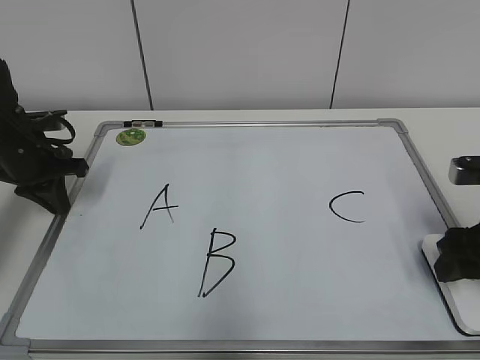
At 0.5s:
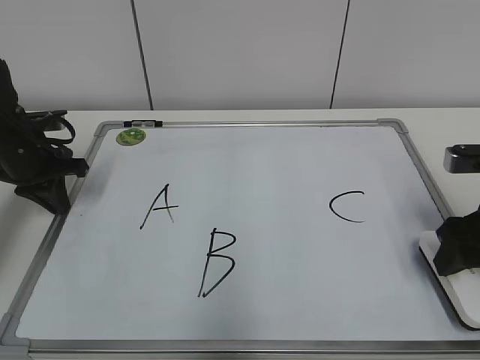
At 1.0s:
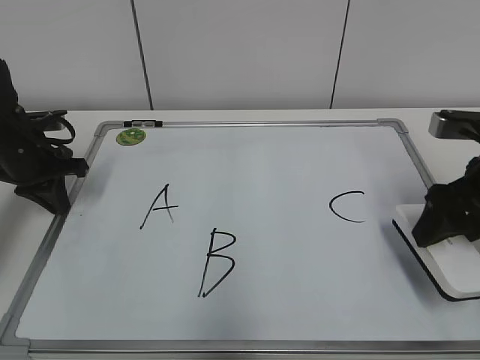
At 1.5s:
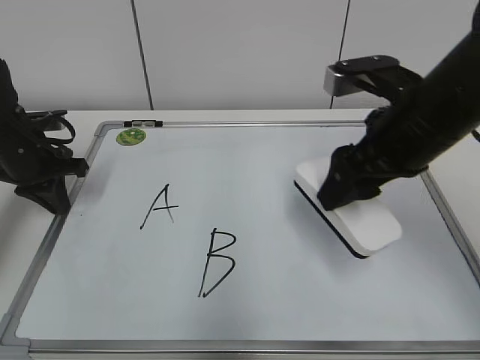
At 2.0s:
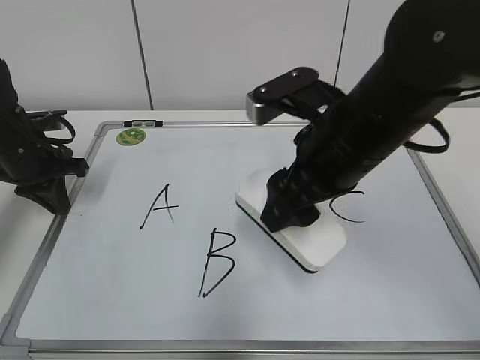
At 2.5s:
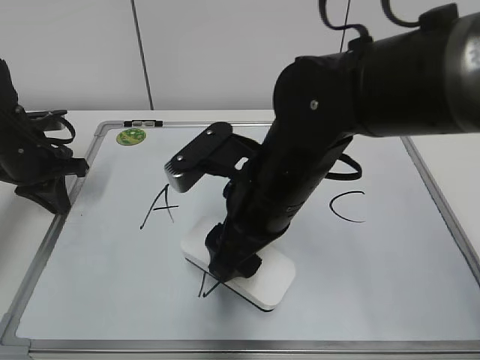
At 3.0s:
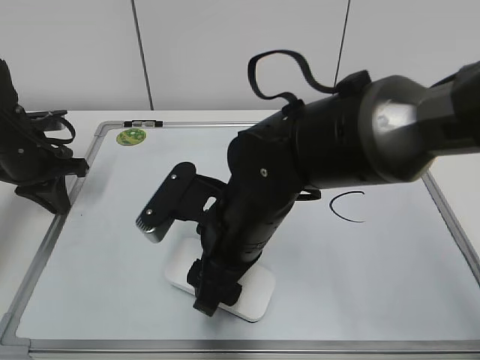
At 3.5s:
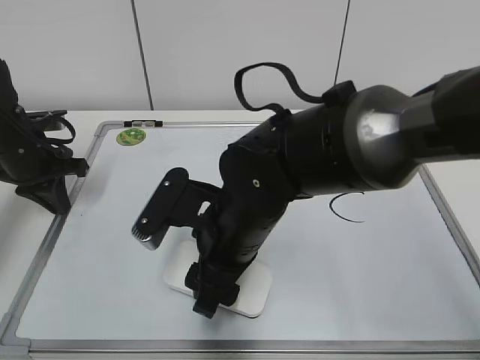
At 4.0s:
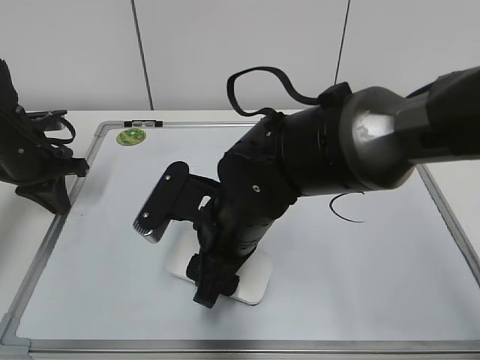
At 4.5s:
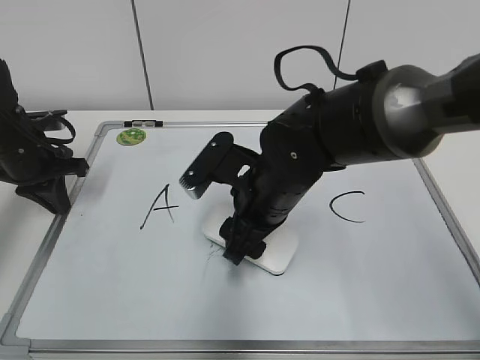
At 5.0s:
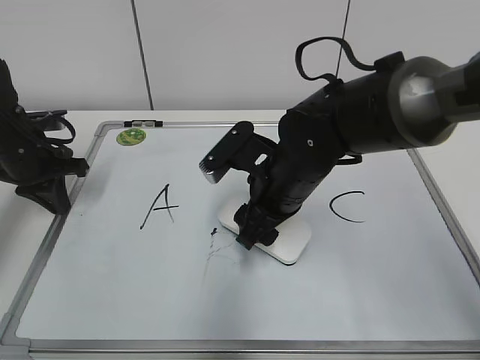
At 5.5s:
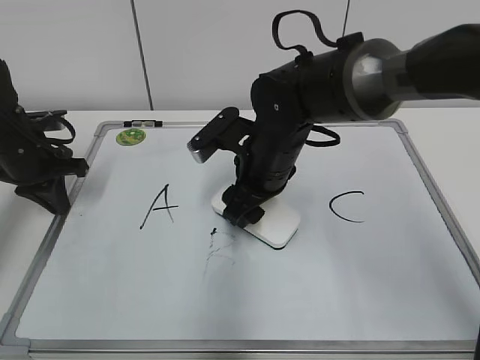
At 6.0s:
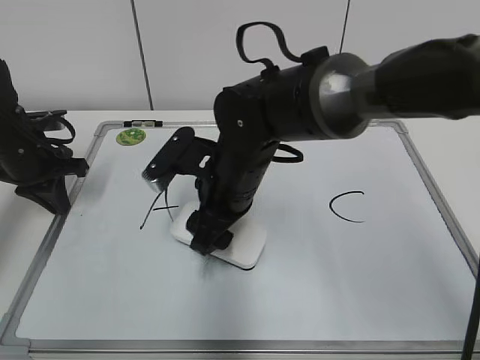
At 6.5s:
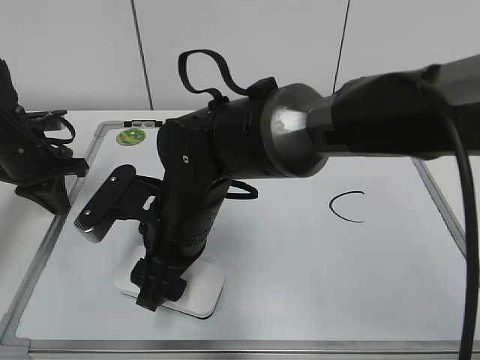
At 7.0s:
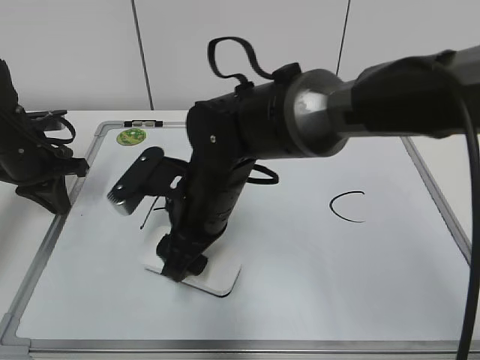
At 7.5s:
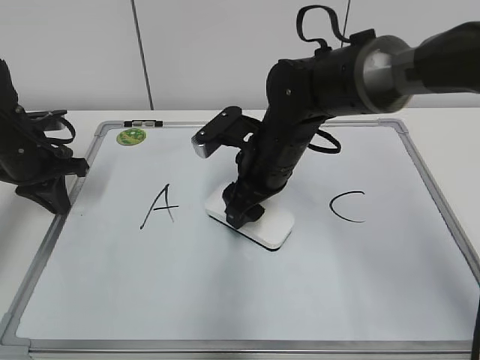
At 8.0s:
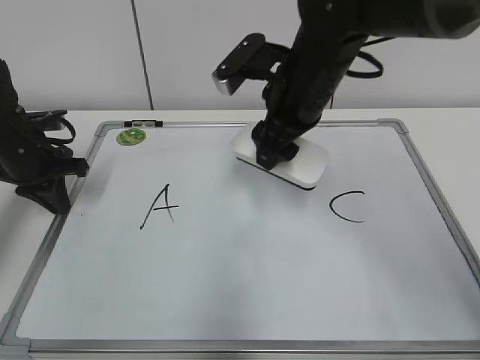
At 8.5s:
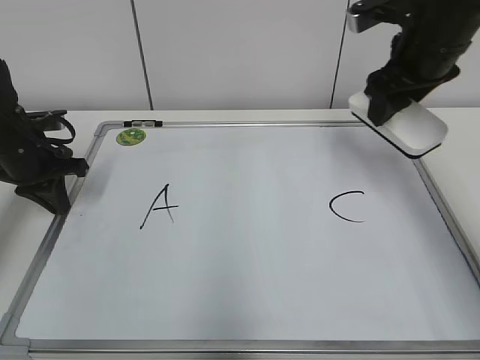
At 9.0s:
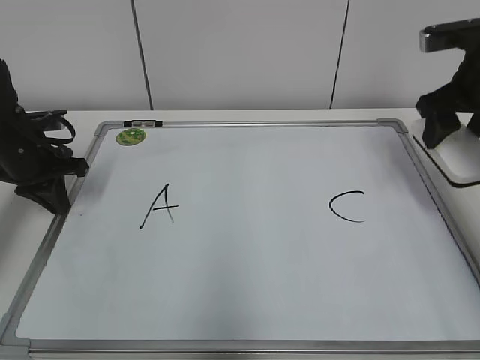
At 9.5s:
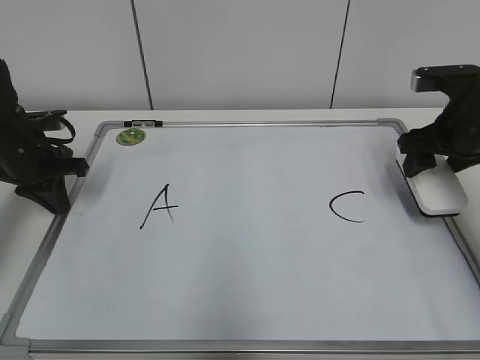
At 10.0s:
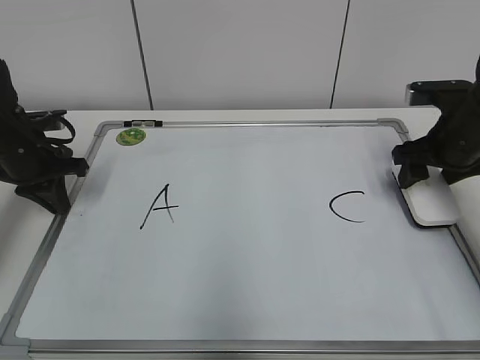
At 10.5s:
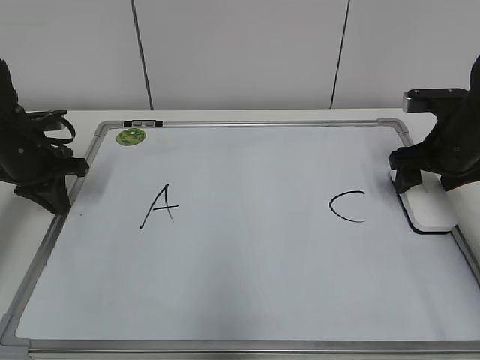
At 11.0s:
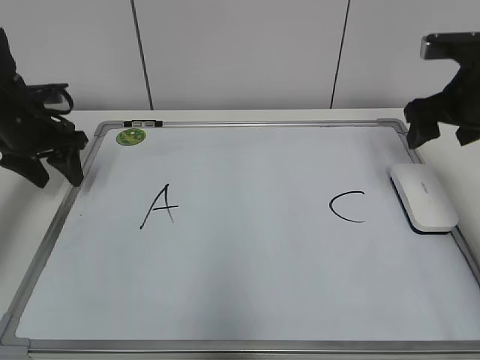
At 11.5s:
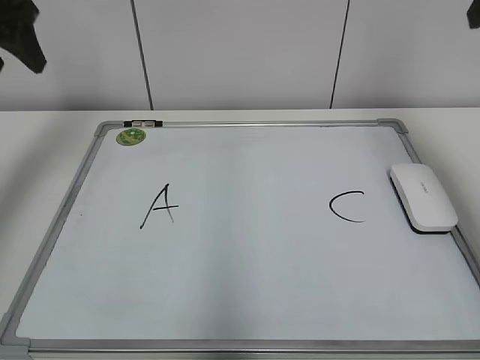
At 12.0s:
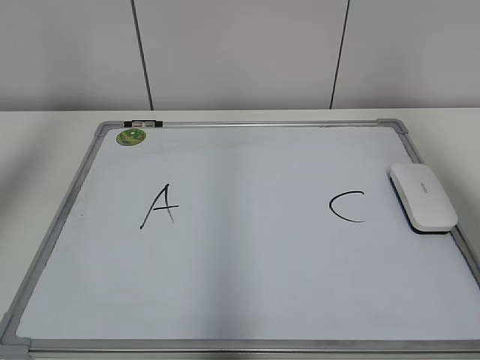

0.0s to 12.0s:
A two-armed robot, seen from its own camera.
Task of the whole recording: pick up the eraser on the blackboard and erase the letter "B".
Step, 0.5s to 7.0s: Erase the letter B with your right hand.
0.0s to 2.0s: The right gripper heads to the left and upward, covering approximately 20 cm.
2.0s to 4.0s: The right gripper moves to the left and downward, roughly 15 cm.
4.0s to 6.0s: The right gripper goes some 5 cm forward.
6.0s to 8.0s: The right gripper is displaced upward and to the right by about 10 cm.
8.0s to 10.0s: The right gripper shifts about 20 cm to the right.
10.0s to 12.0s: The left gripper goes roughly 30 cm upward, and opens up. Meanwhile the right gripper shifts some 30 cm upward and backward.

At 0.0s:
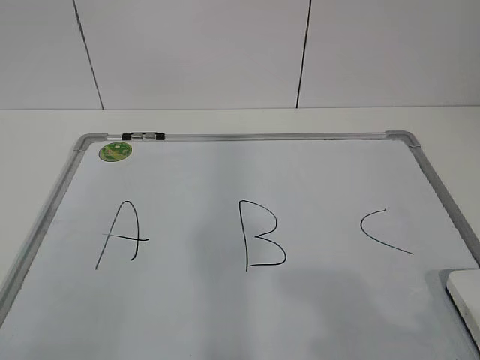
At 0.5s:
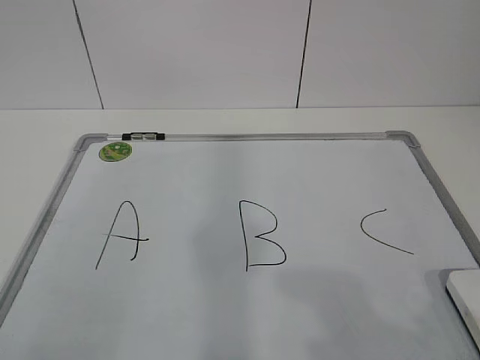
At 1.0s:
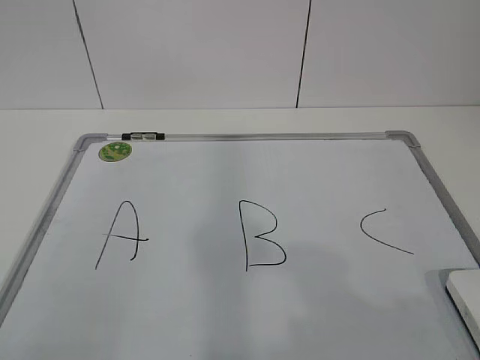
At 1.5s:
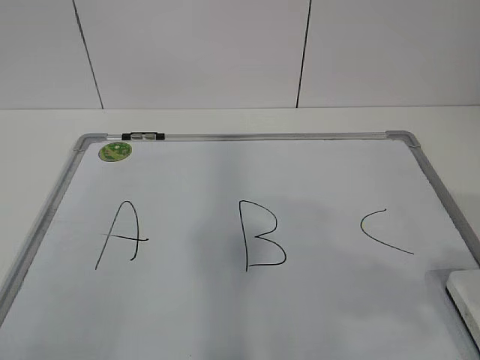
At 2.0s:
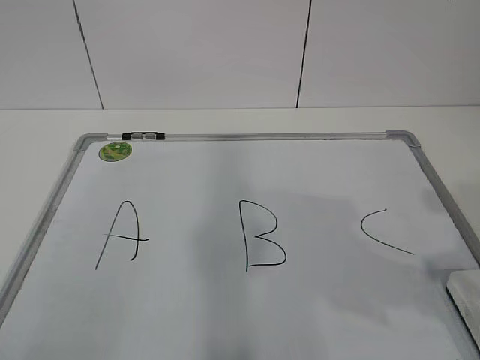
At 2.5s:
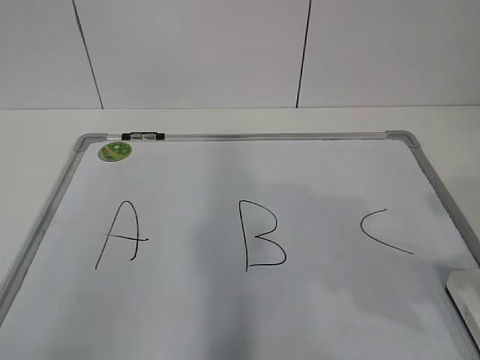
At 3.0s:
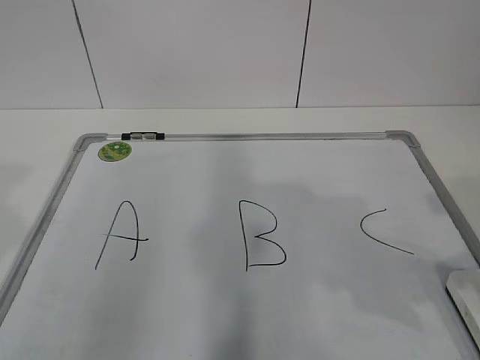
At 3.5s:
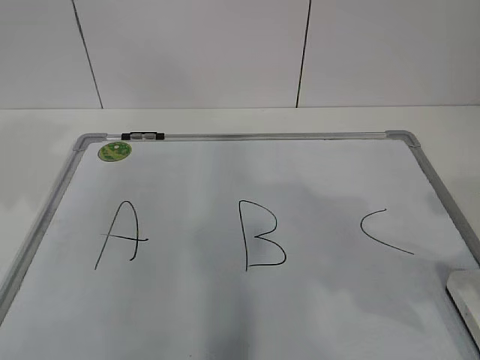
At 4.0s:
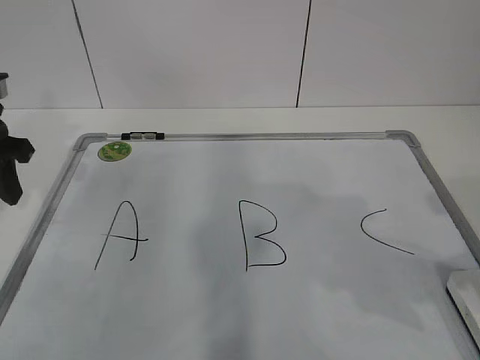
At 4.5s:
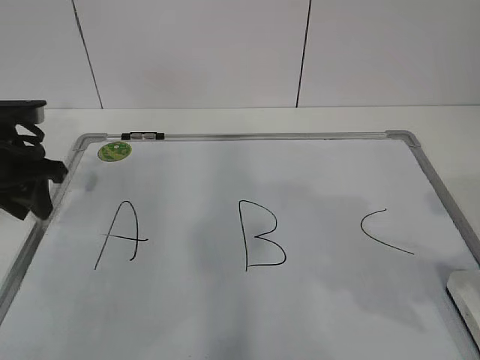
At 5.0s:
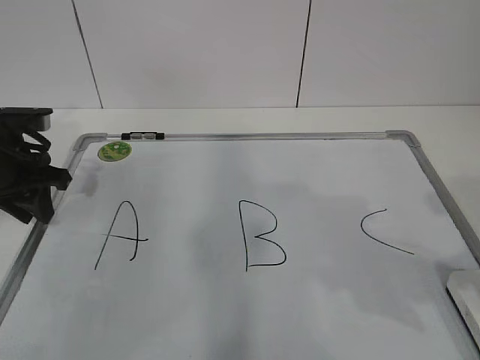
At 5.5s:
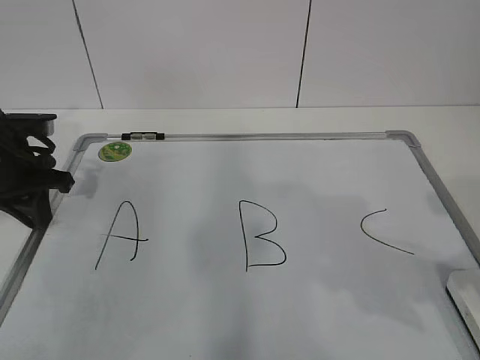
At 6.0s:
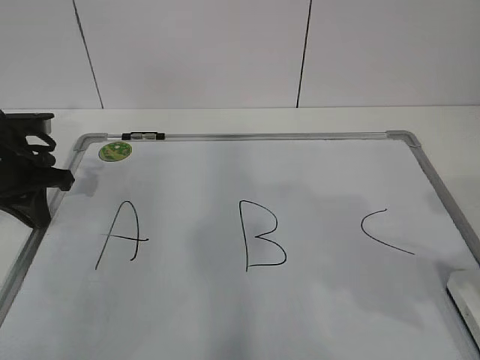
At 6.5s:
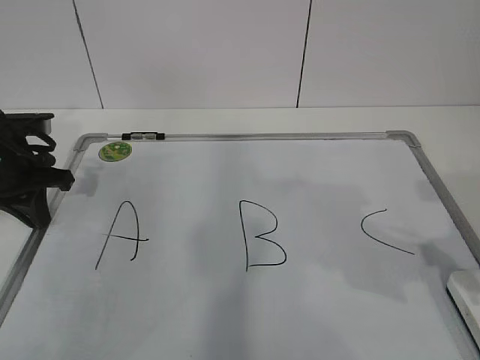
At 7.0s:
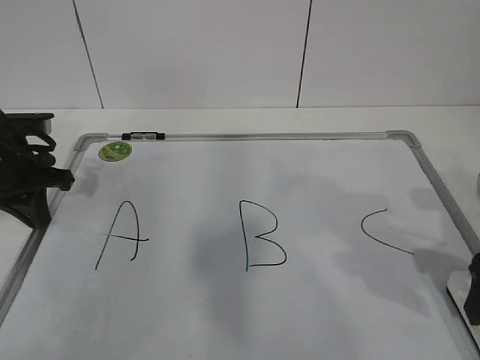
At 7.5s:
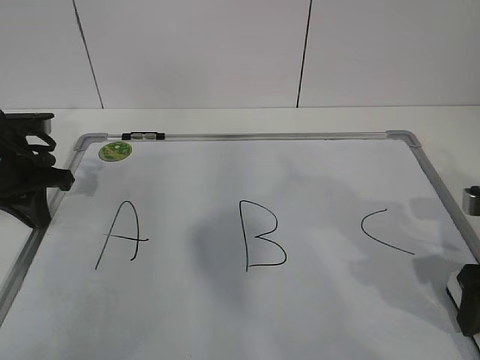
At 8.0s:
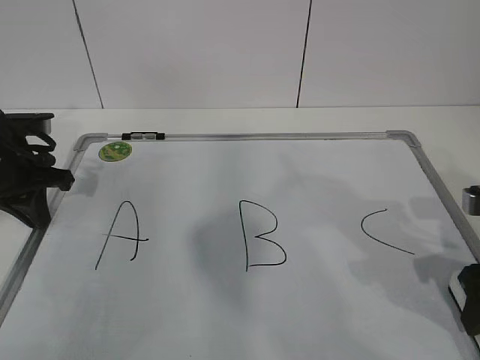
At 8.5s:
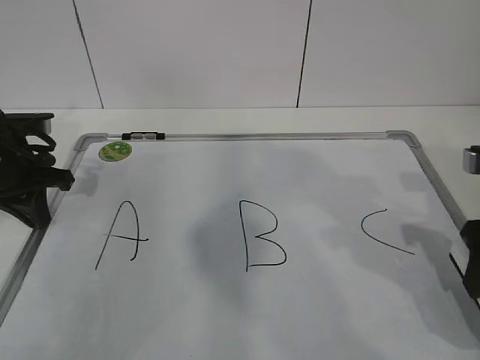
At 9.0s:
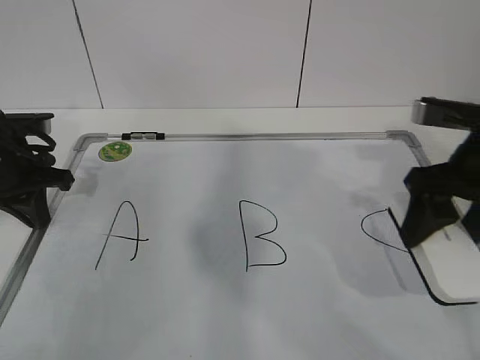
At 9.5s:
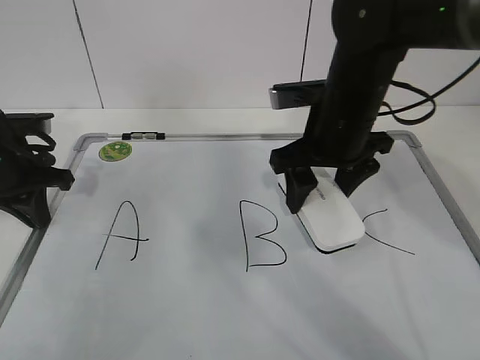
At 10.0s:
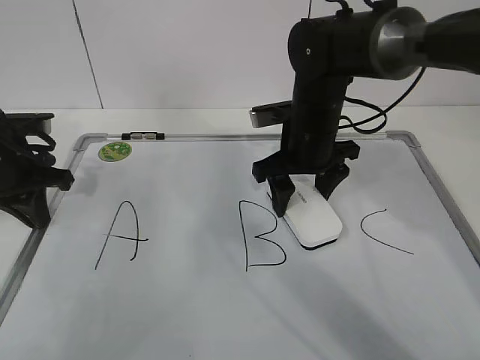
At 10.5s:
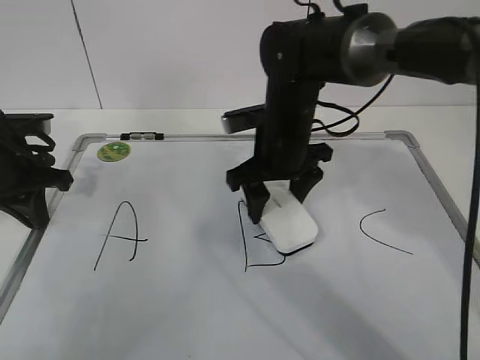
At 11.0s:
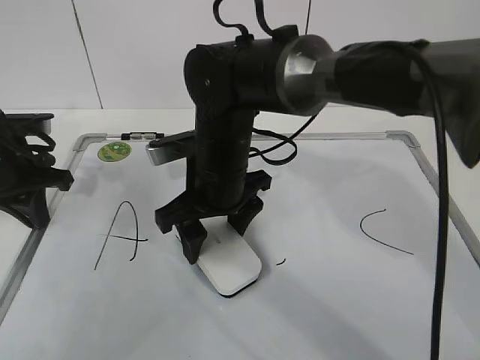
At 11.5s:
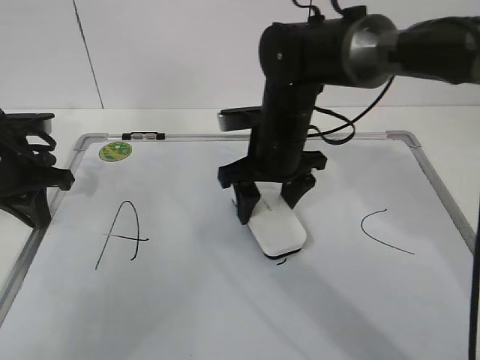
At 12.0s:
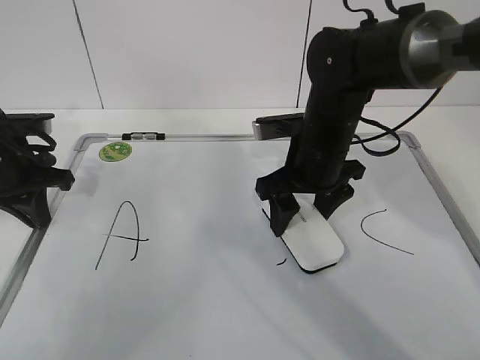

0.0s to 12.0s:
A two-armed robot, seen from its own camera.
Task of the whole recording: pick up the eraser on the blackboard and erase the letter "B".
Step, 0.0s to 4.5s: Hold the drawing board steady with your left hand.
Step, 7.0s to 11.0s: Erase the letter B with your right hand.
2.0s to 4.0s: The left gripper moves forward, about 35 cm.
4.0s to 6.0s: The left gripper shifts about 5 cm downward, and closes.
6.0s to 8.0s: The right gripper heads downward and forward, covering roughly 10 cm, and opens and closes again.
8.0s to 10.0s: The right gripper is displaced to the left and forward by about 25 cm.
10.0s to 12.0s: The right gripper moves roughly 10 cm to the left and comes back.

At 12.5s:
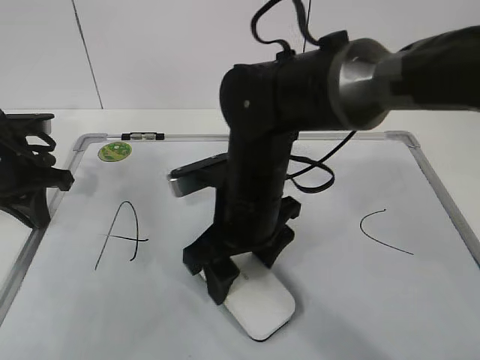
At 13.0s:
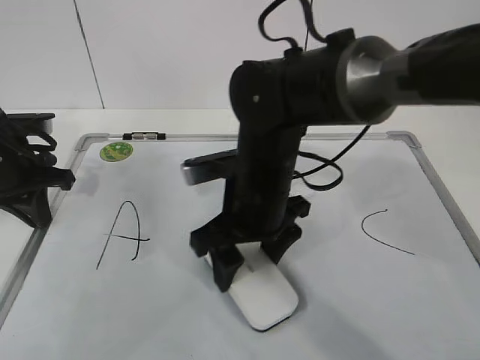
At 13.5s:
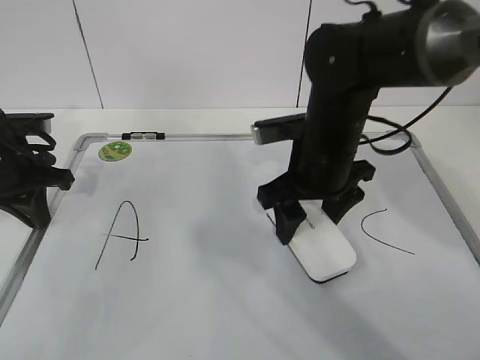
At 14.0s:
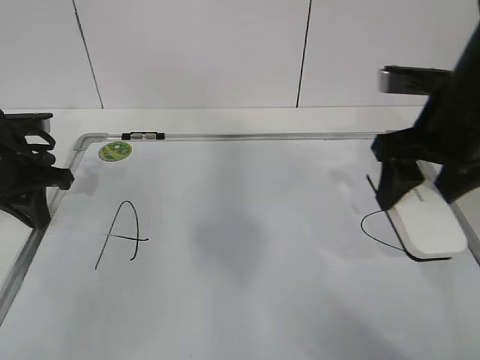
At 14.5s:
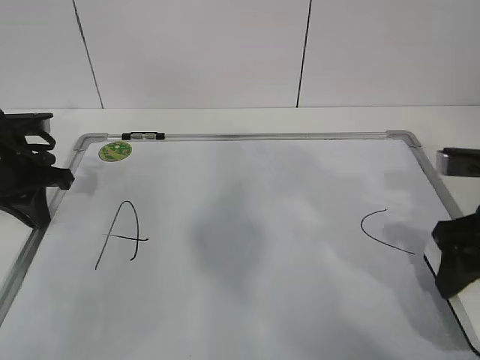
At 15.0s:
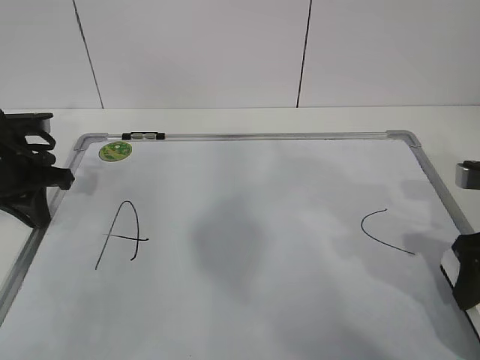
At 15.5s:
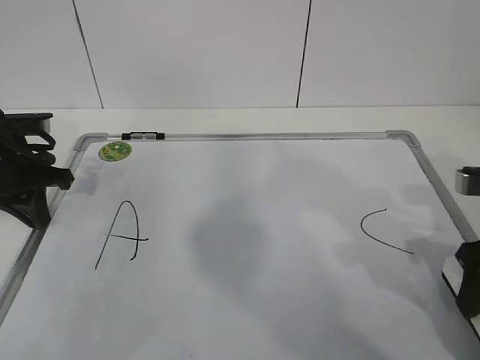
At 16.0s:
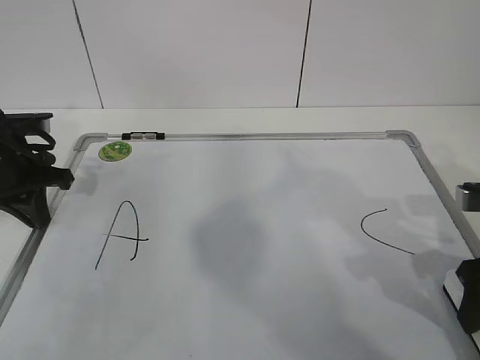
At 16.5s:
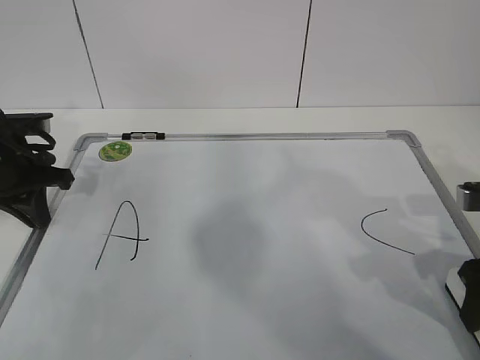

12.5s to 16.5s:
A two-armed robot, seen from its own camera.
Task of the whole recording: pick up the eraser on the blackboard and erase the letter "B".
Step, 12.5s to 14.0s: Put down the eraser with your right hand.
12.5s to 14.5s: The right gripper is displaced to the right by roughly 25 cm.
14.5s to 16.5s: There are only small adjustments of the grippers.
